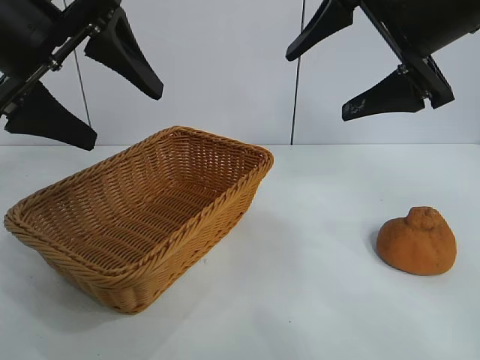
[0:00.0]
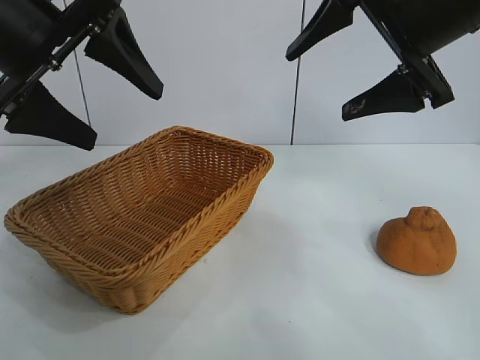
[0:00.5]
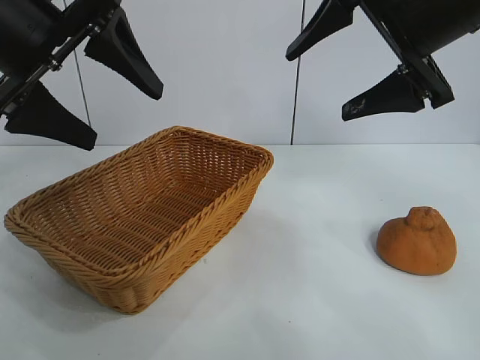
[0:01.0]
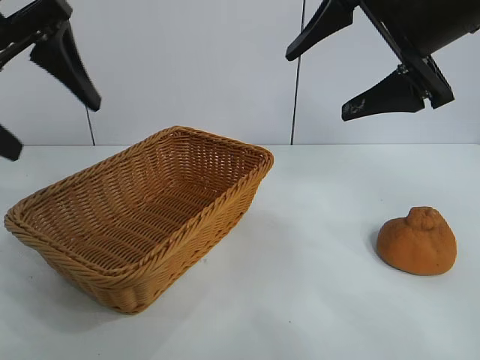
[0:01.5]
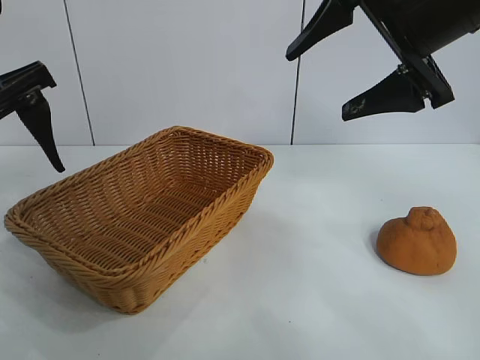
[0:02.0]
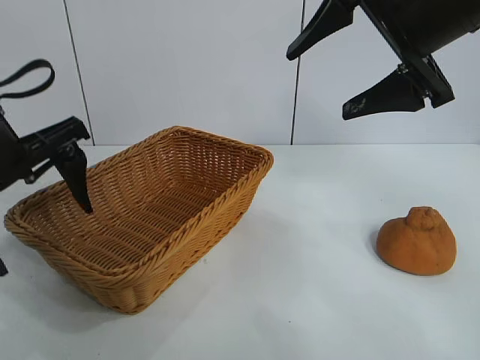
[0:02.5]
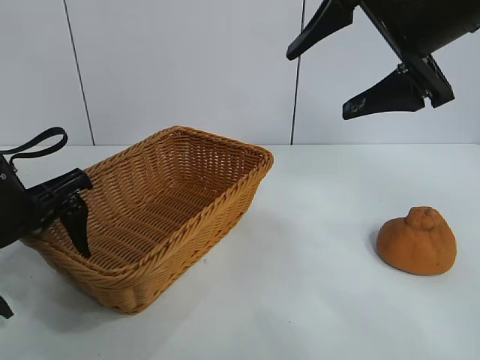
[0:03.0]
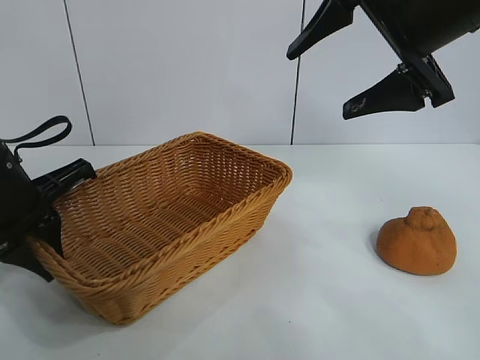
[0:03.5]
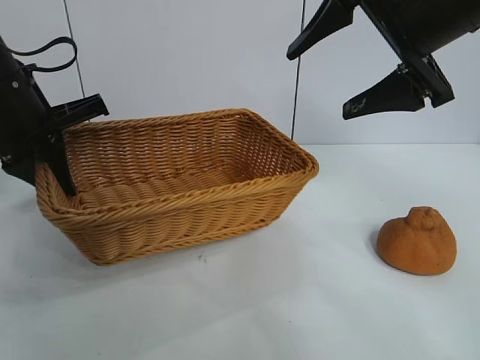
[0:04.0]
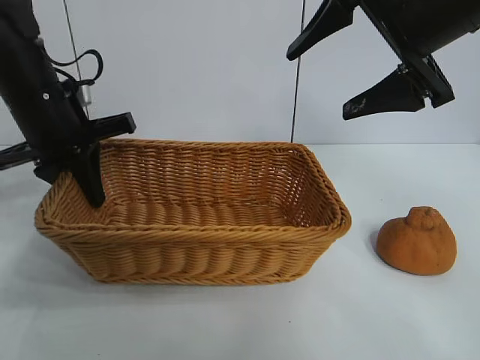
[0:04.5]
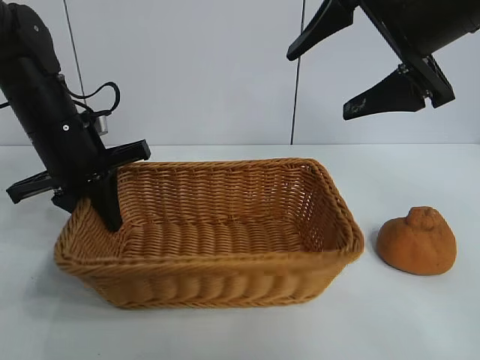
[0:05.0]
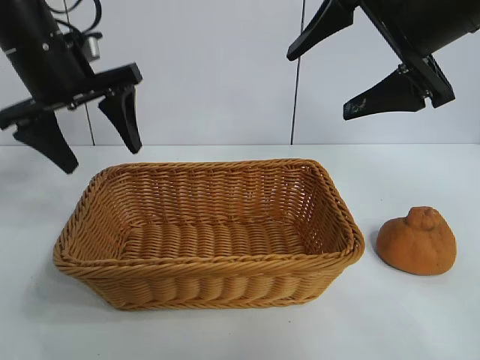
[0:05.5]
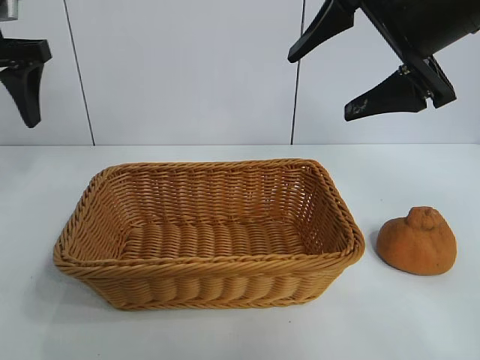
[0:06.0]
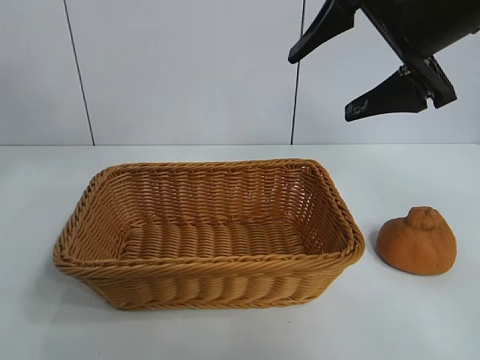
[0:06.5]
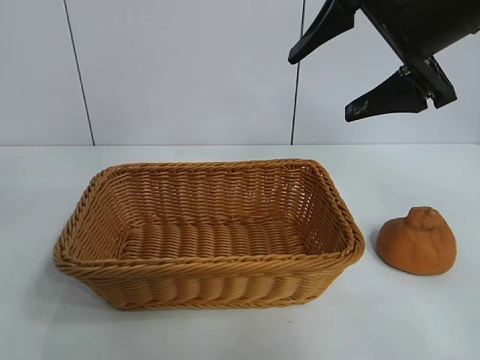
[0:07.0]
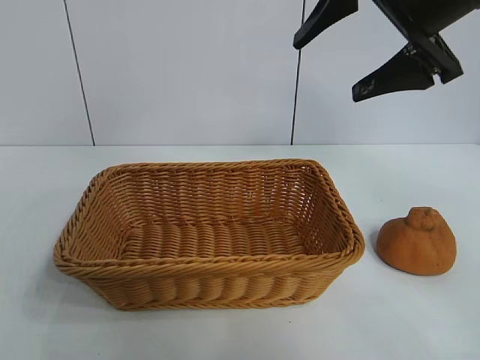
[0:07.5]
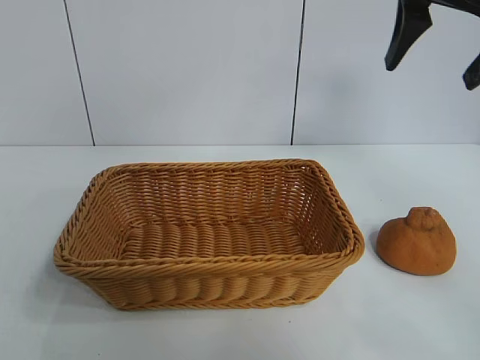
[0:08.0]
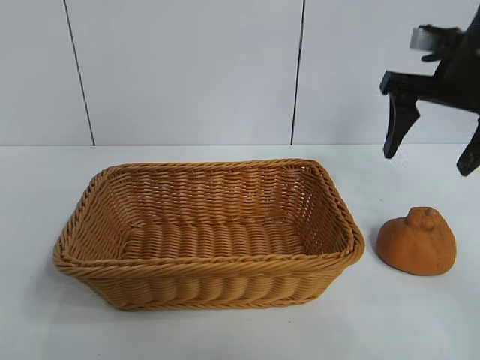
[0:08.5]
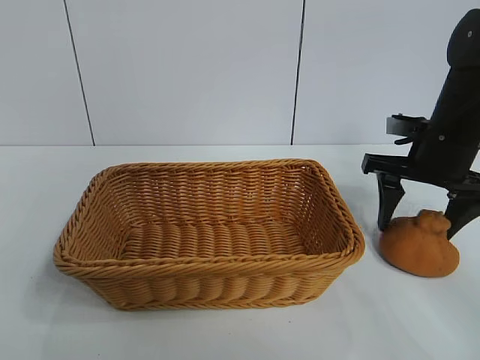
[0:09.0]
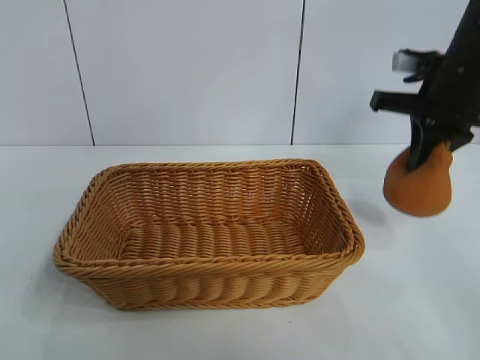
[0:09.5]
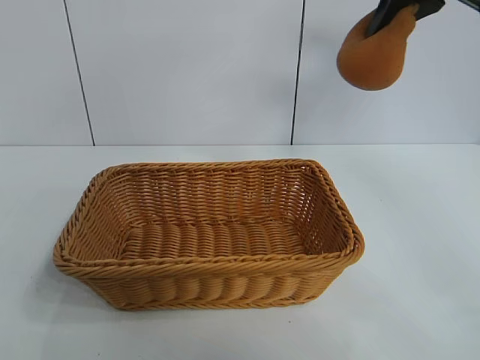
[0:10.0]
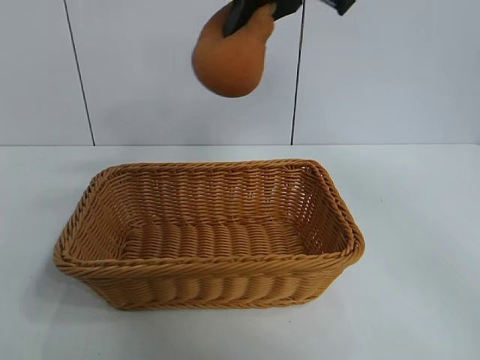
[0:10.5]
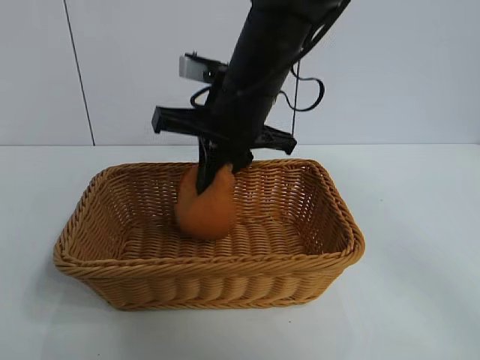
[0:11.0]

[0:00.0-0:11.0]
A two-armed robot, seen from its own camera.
Task of the whole recording: pick up the orange and put it into the basket.
Step, 0:01.0 to 0:03.0: Grasp the basket with left gripper.
Step, 0:04.0 to 0:05.0: Place the basket in the center of view with left gripper.
Step, 0:05.5 to 0:09.0: Grasp the orange with right gripper.
